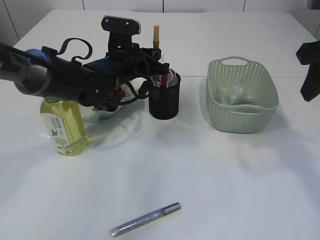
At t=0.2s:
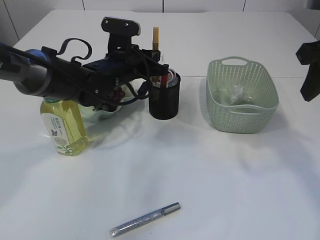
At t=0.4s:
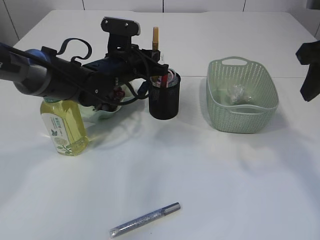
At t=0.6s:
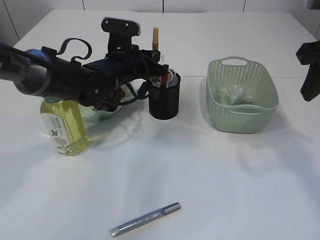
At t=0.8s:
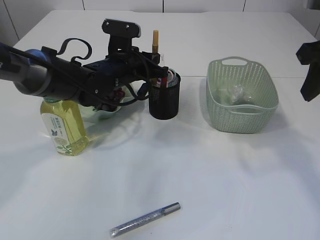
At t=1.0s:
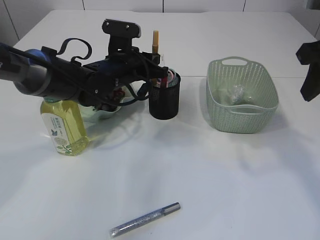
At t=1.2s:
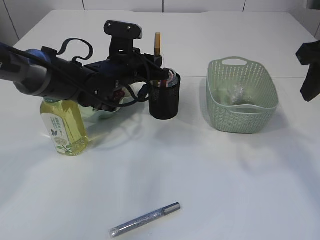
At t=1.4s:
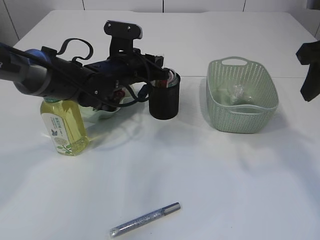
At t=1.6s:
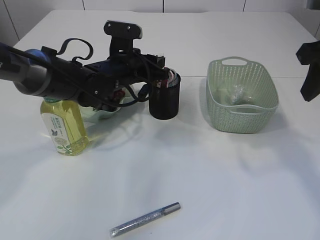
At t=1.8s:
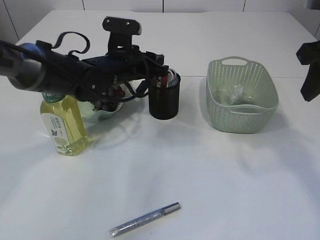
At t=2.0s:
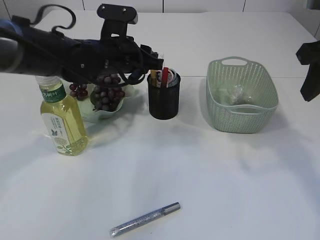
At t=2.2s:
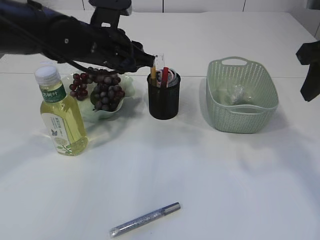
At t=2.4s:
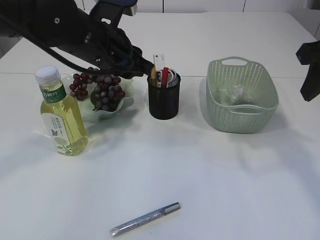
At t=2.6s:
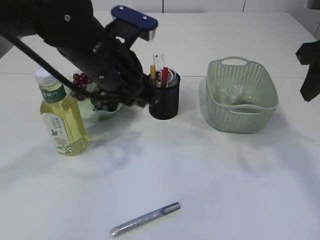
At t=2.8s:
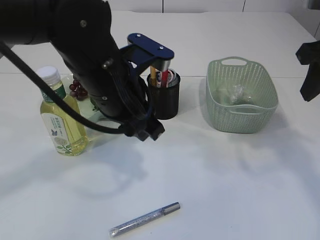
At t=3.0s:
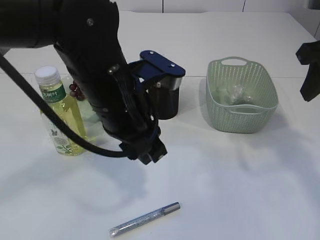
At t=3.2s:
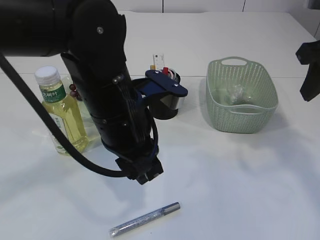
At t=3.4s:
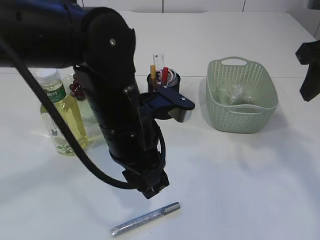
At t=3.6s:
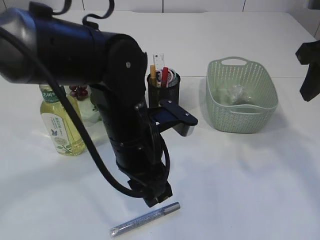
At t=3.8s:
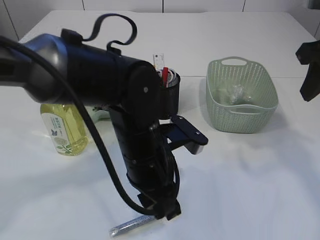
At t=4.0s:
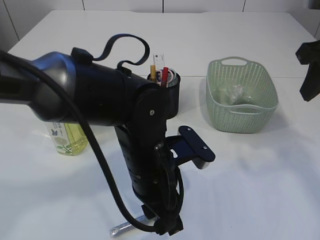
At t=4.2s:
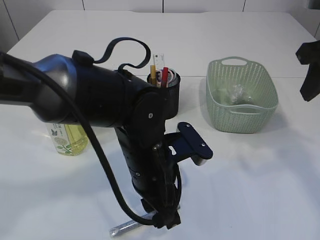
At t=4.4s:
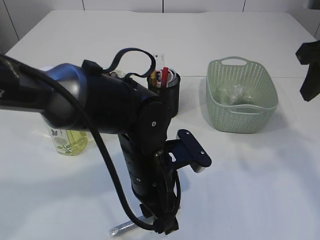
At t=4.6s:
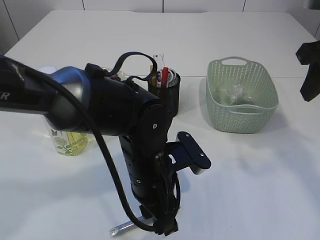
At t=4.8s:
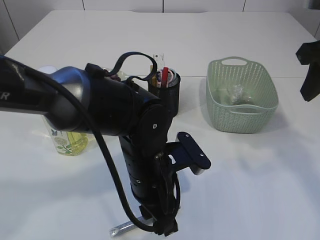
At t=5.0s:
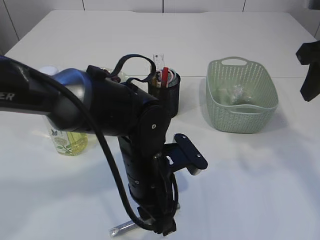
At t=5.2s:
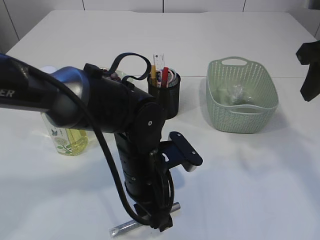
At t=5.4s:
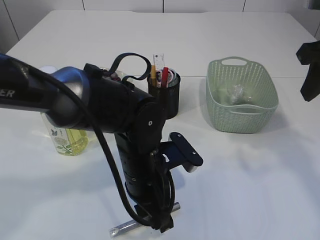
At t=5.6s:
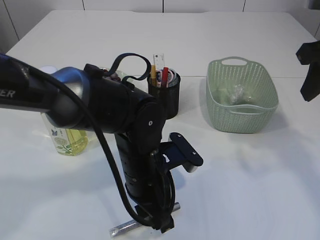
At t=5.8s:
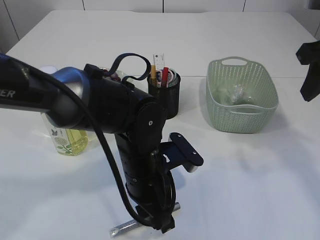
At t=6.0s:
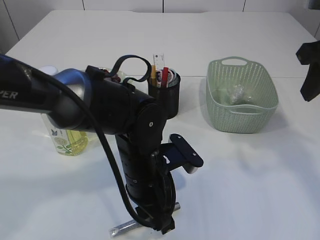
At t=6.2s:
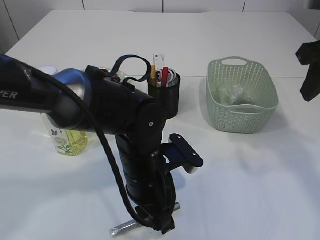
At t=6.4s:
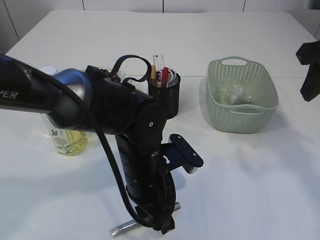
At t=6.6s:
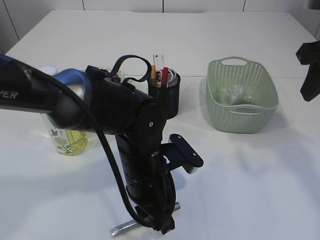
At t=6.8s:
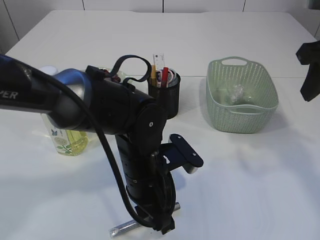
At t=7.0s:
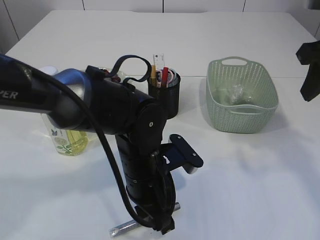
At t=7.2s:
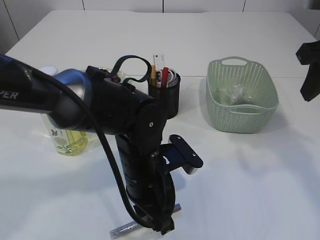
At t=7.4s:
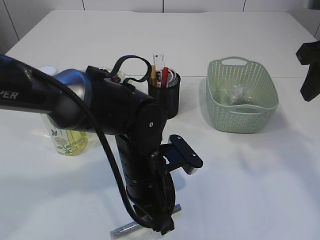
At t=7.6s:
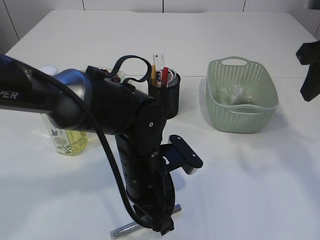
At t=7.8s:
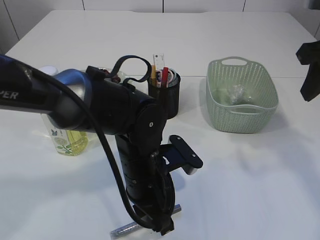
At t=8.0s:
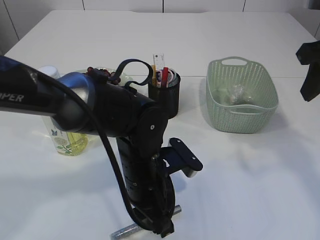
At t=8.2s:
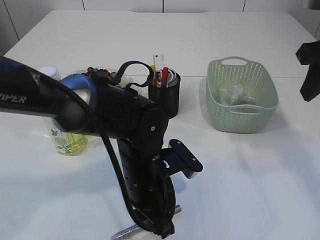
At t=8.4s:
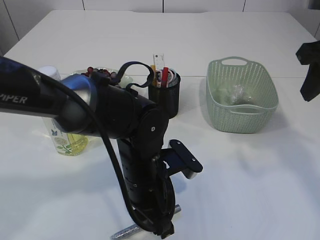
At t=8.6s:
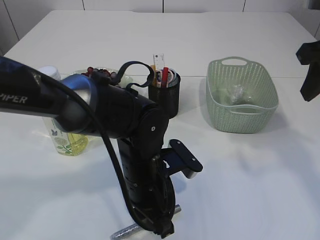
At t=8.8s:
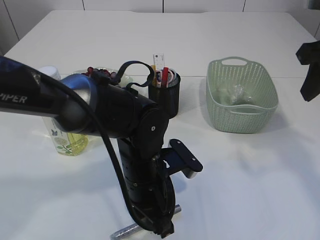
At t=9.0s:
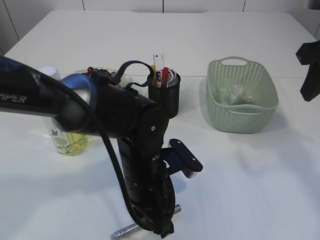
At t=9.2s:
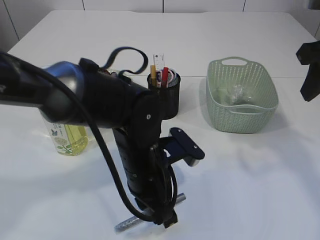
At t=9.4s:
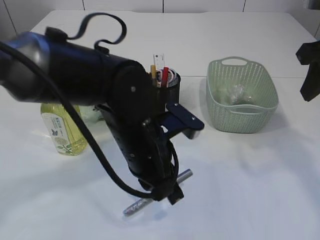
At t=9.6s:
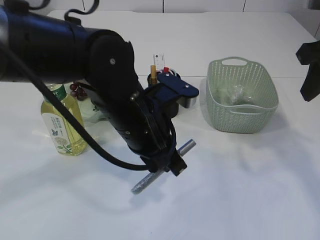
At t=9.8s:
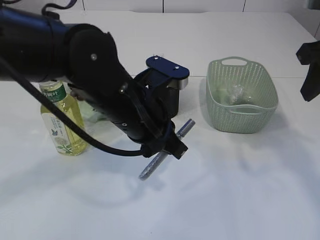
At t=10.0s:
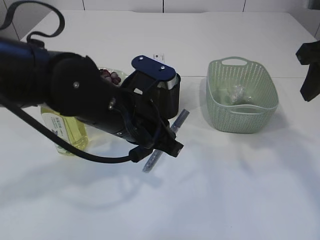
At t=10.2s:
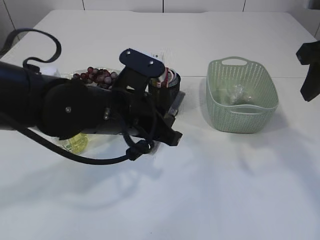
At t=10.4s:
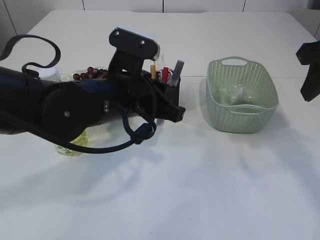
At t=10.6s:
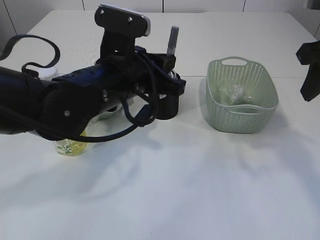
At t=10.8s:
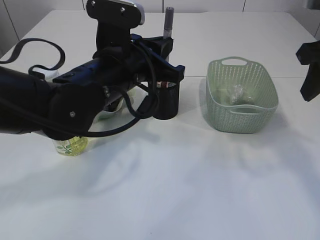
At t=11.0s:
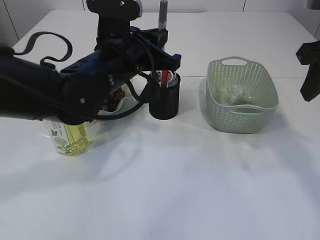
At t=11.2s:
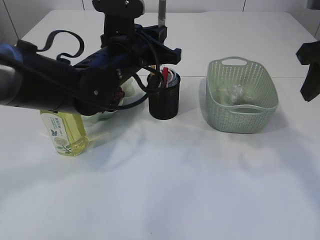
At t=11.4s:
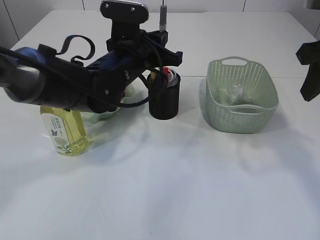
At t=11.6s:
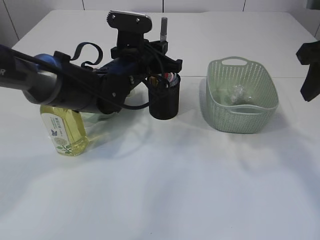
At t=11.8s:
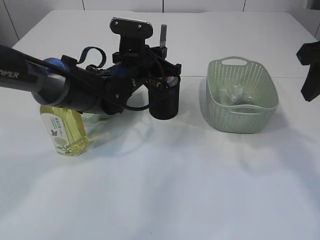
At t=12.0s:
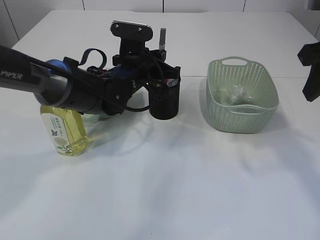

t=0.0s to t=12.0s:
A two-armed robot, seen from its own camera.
Step, t=0.0s to t=2.6s: place the yellow glue into the pen holder.
Step, t=2.8s to t=9.4s: pick up the silver glue.
t=0.0s to t=1.6s: The left gripper opens its fingers.
t=1.6s to t=3.0s: The left gripper goes approximately 20 cm backward and upward.
t=3.0s to t=4.4s: The left gripper is displaced downward by roughly 10 cm.
t=4.4s to t=6.0s: There are only small adjustments of the grippers.
t=6.0s to t=9.0s: The two grippers keep their place.
t=9.0s to t=10.4s: The left gripper goes roughly 10 cm upward.
t=10.4s to t=12.0s: The left gripper moves forward, roughly 15 cm.

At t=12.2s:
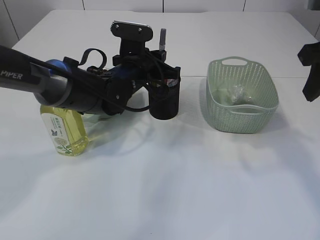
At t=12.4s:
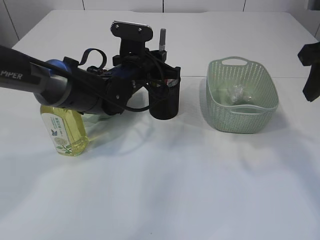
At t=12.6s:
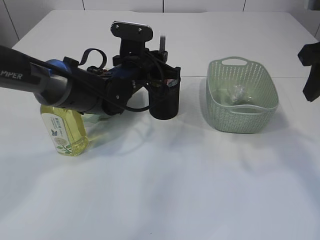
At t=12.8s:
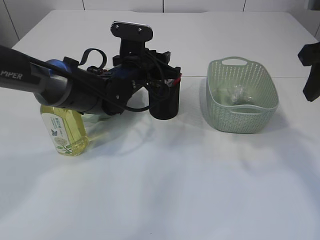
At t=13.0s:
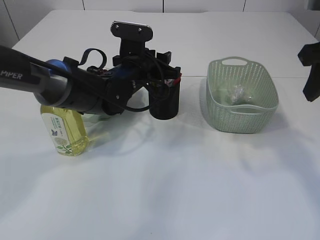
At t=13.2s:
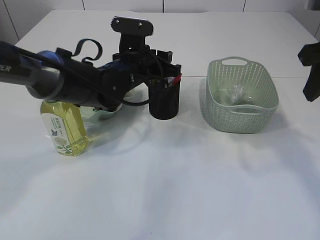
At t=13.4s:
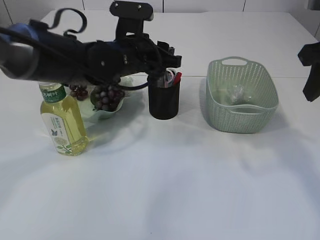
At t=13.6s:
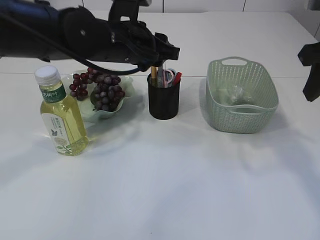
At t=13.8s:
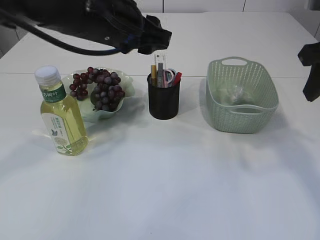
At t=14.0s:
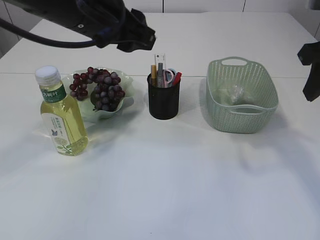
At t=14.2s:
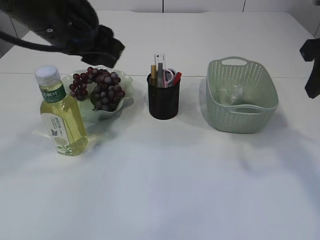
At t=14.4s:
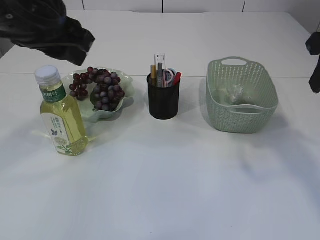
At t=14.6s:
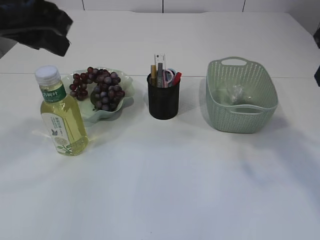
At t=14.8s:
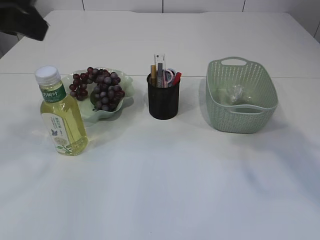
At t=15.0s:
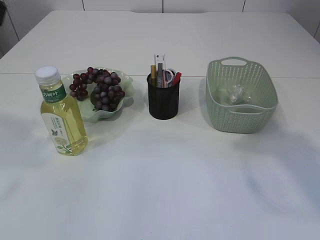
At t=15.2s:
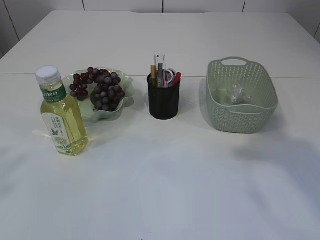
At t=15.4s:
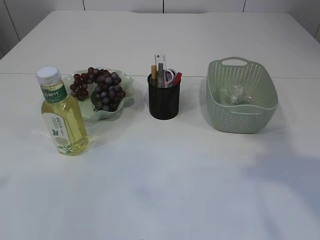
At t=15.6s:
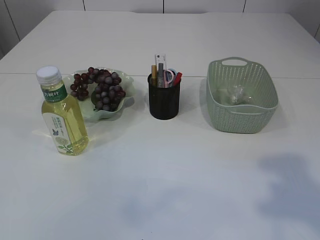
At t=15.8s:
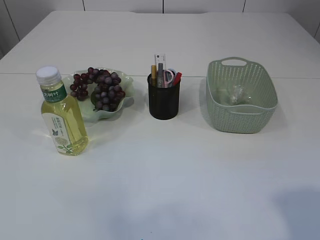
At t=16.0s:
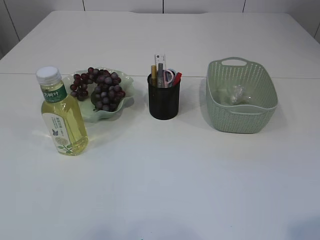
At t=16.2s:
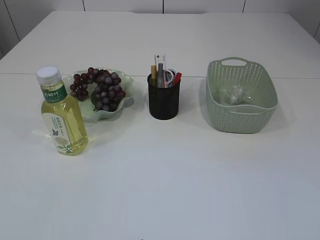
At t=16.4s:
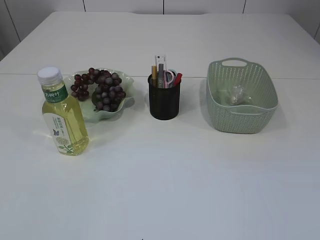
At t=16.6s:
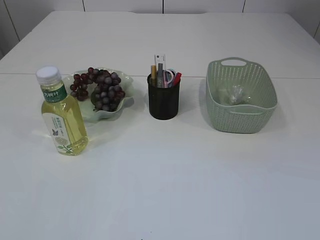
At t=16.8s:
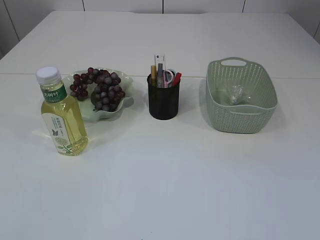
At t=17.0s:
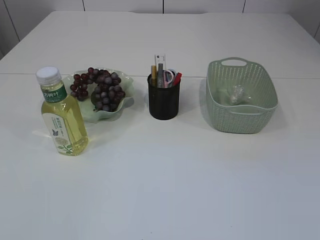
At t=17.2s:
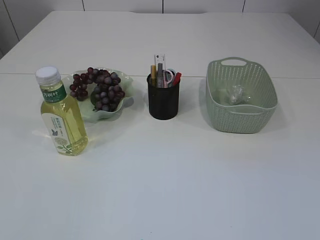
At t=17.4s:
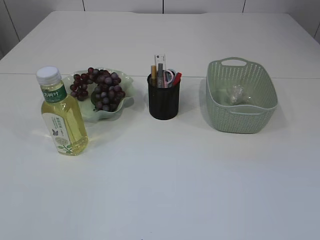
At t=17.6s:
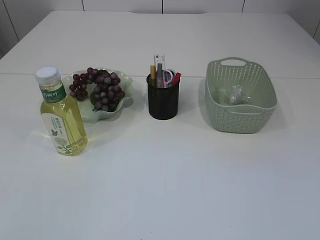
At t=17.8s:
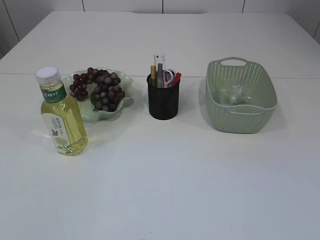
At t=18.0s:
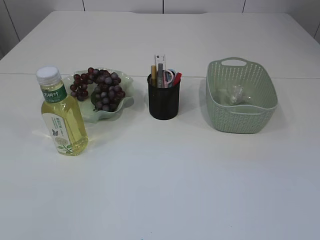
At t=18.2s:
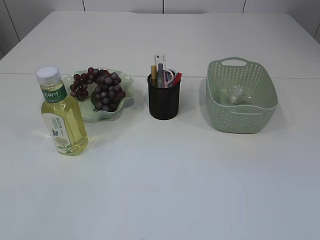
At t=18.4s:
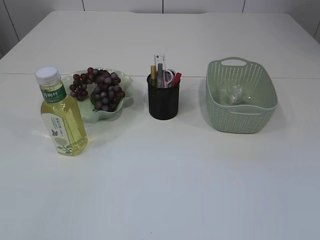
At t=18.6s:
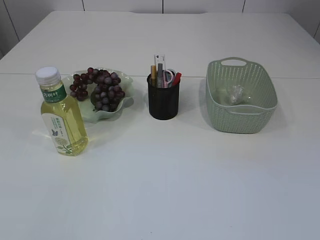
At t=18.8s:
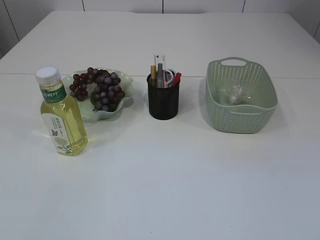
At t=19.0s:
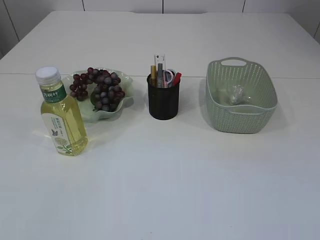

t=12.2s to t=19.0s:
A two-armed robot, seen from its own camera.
t=12.2s to t=13.6s: The left gripper moves upward, about 10 cm, and opens up.
t=13.6s to t=15.0s: The right gripper moves upward and backward, some 10 cm. Meanwhile the left gripper is displaced backward, upward and to the left by some 30 cm.
